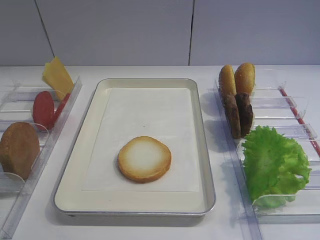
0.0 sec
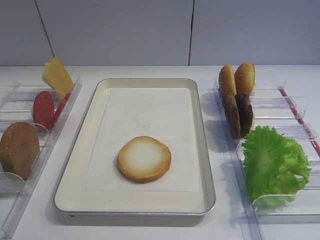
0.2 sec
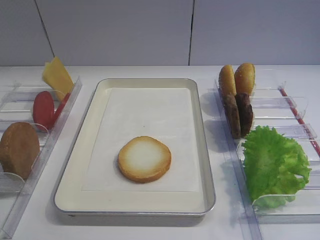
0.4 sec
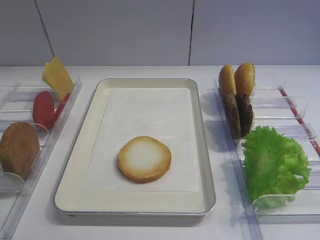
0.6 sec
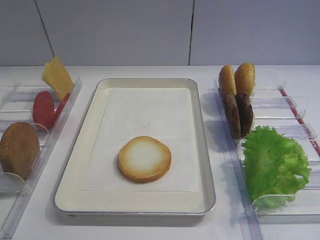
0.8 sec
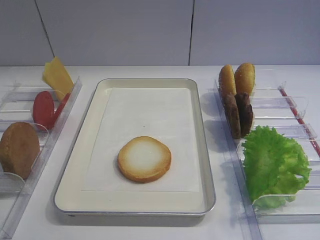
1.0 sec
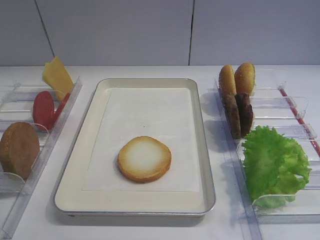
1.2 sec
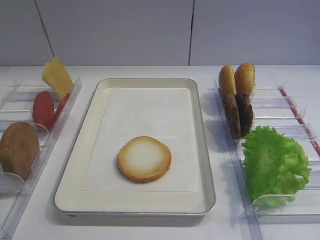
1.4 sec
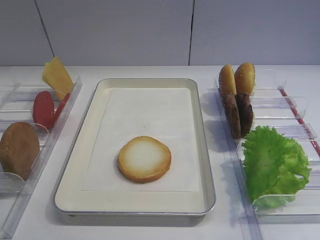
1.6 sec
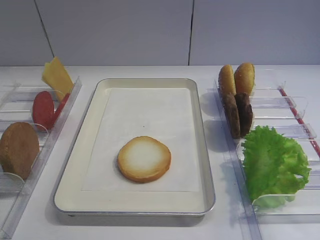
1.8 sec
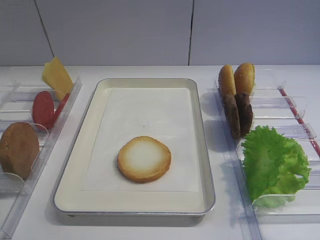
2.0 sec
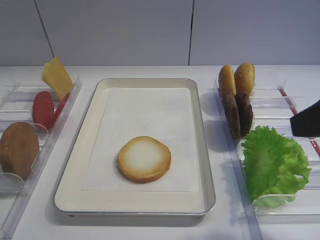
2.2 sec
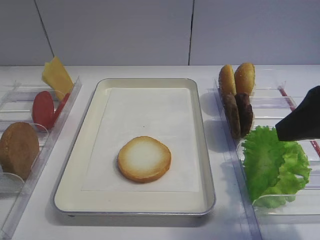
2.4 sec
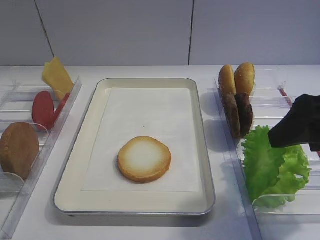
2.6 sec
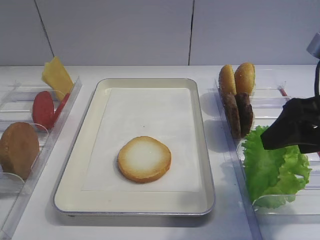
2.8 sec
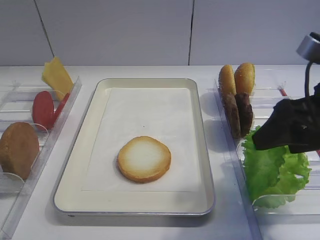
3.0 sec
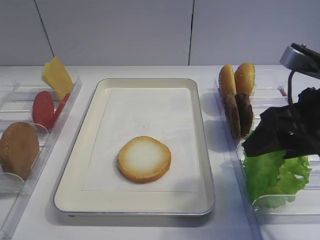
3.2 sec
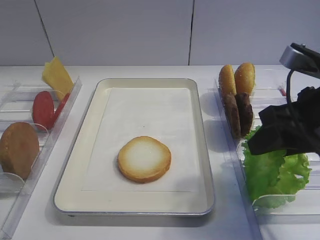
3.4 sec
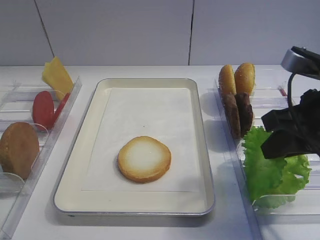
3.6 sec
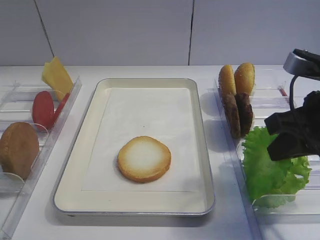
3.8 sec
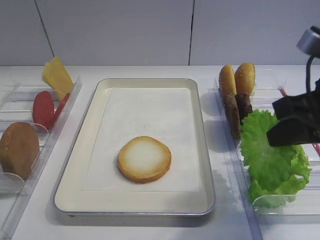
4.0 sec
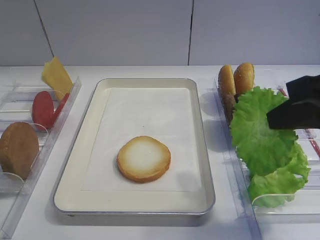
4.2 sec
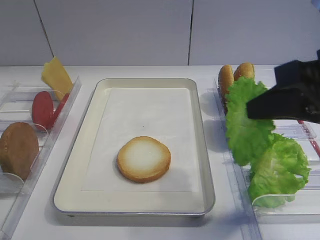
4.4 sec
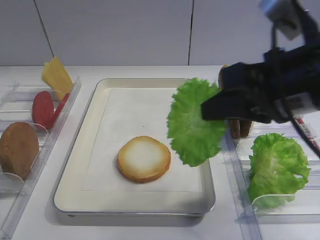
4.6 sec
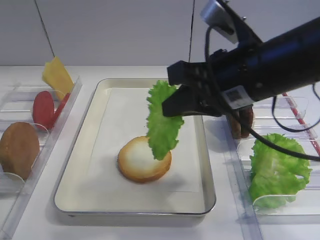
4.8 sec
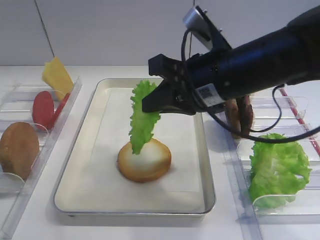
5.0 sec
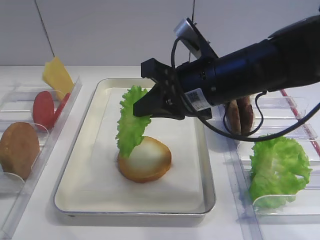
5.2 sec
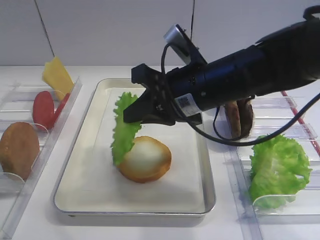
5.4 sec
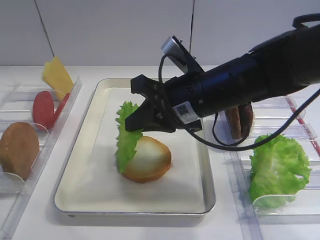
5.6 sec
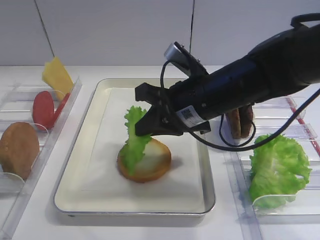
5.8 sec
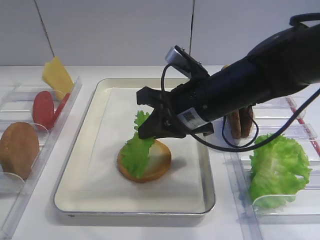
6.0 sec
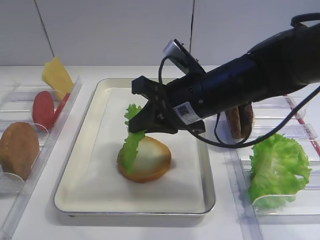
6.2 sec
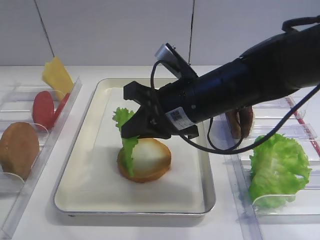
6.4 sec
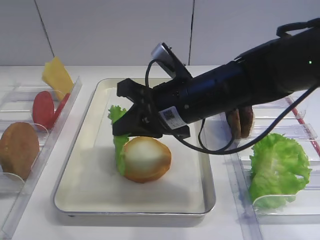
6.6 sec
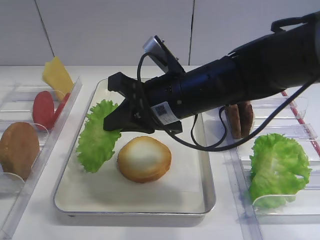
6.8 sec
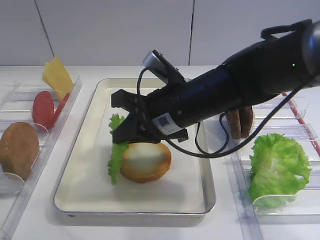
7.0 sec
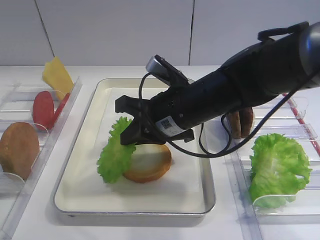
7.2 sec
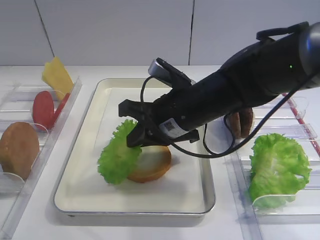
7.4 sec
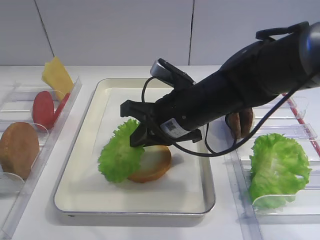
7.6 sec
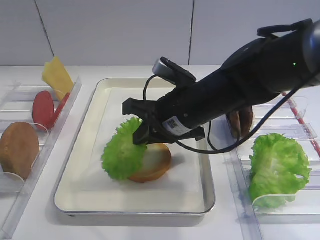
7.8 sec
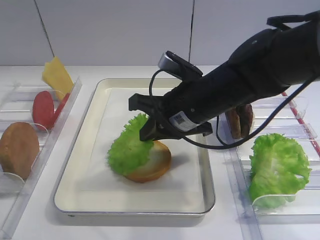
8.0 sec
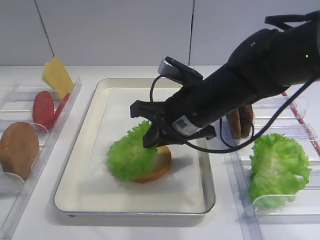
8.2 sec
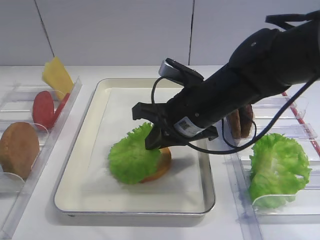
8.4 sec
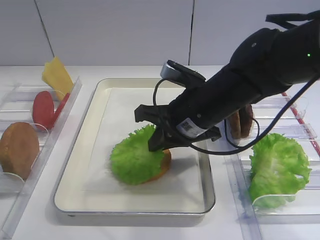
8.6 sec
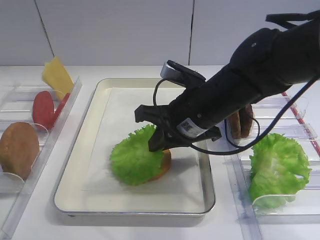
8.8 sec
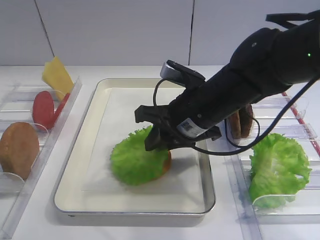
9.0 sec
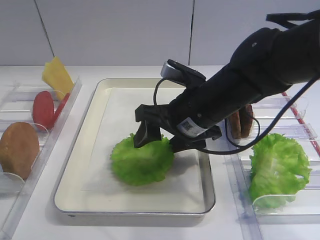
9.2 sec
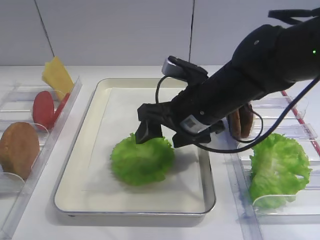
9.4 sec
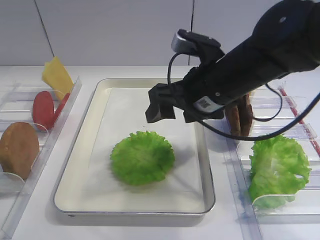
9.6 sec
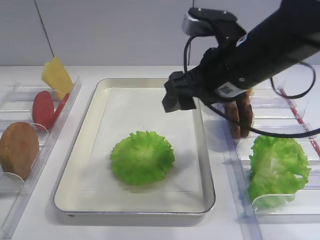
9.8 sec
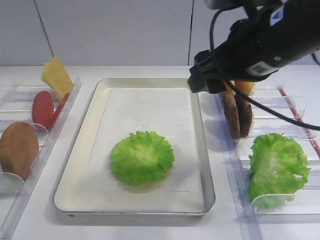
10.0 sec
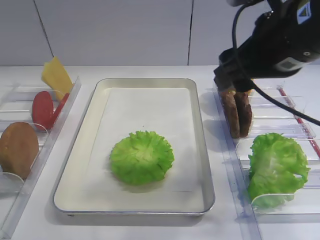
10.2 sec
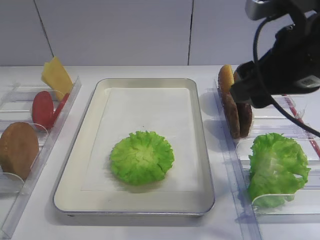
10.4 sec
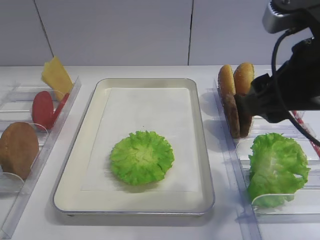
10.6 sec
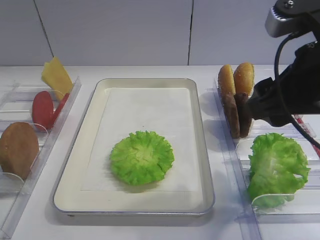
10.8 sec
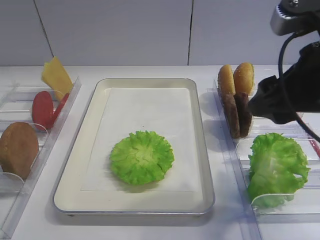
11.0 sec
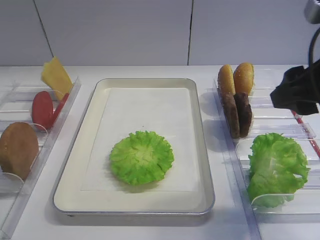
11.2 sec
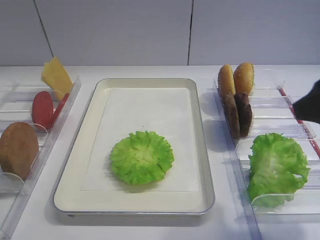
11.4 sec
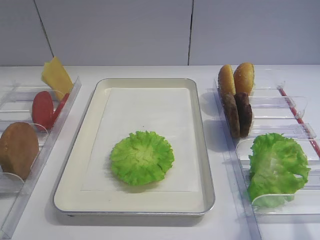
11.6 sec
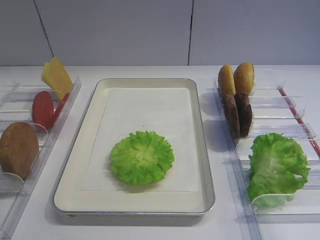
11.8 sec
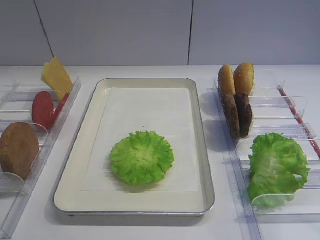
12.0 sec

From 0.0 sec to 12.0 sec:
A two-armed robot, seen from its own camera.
Step, from 0.0 sec to 4.0 sec: Pick up the lettuce leaf with the right gripper.
Step, from 4.2 sec to 9.4 sec: Place the lettuce leaf on the bread slice with the right gripper.
From 1.6 sec to 3.0 sec: The right gripper travels forward by about 20 cm.
From 3.0 sec to 4.4 sec: The right gripper closes.
From 4.4 sec to 6.0 sec: The right gripper travels to the left, forward and downward by roughly 20 cm.
From 6.0 sec to 9.0 sec: The grippers stay close to where they were, moving slightly.
From 9.0 sec to 10.4 sec: The right gripper is displaced upward, to the right and backward by about 15 cm, and opens its fingers.
From 10.4 sec to 12.0 sec: The right gripper heads backward and to the right, covering about 20 cm.

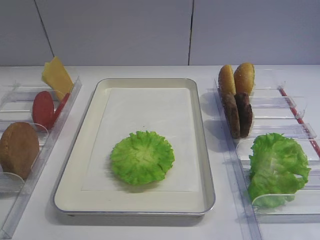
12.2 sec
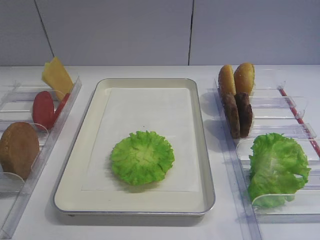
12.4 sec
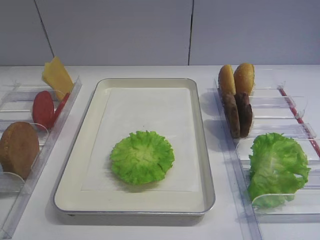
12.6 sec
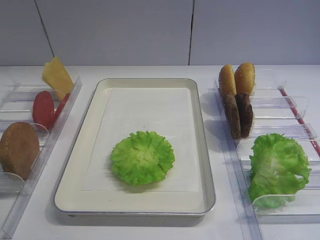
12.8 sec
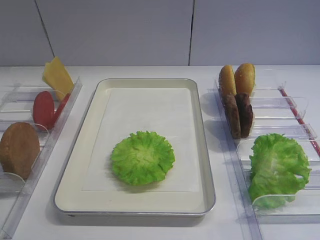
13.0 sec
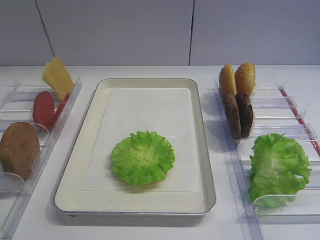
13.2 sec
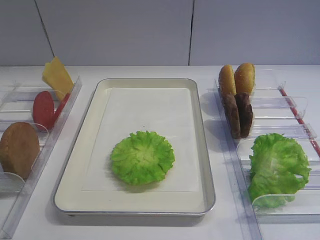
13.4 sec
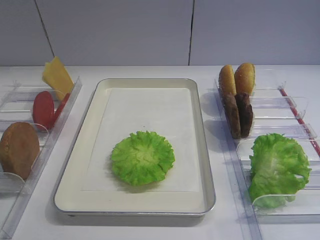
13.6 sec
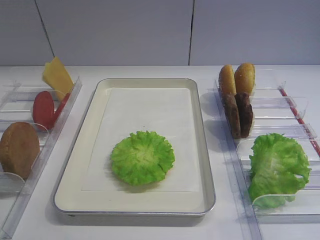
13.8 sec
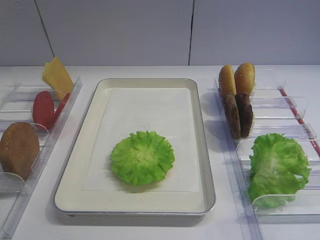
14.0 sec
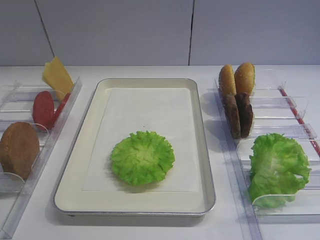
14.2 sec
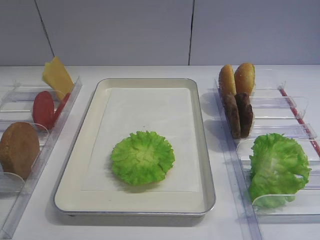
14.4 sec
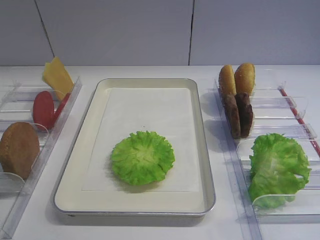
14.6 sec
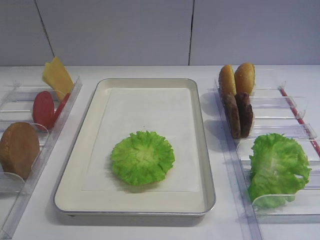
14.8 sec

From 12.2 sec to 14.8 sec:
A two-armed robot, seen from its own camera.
From 13.4 sec to 14.8 sec: Neither gripper changes place.

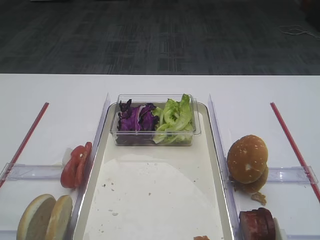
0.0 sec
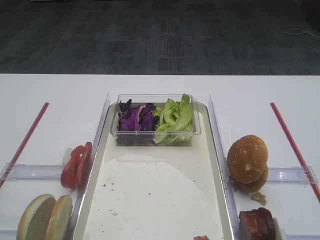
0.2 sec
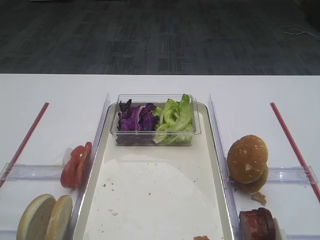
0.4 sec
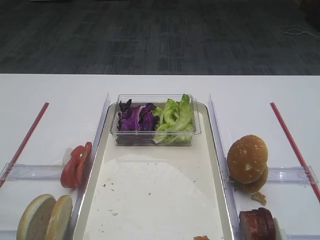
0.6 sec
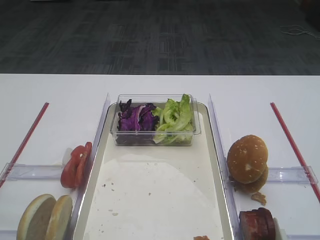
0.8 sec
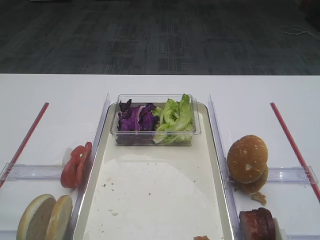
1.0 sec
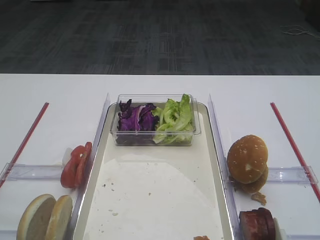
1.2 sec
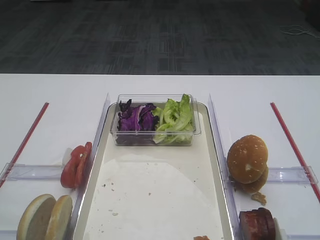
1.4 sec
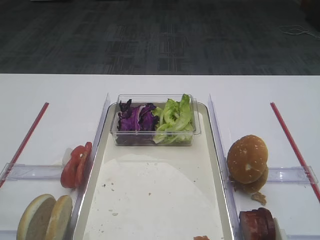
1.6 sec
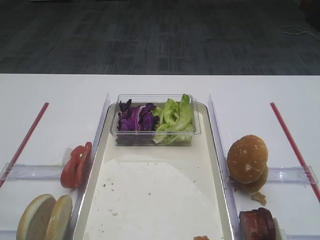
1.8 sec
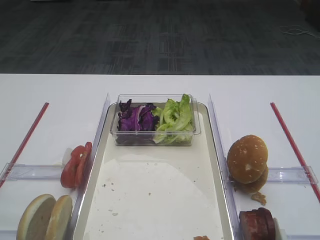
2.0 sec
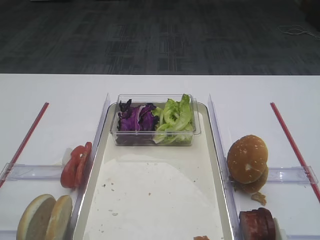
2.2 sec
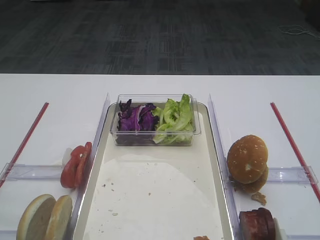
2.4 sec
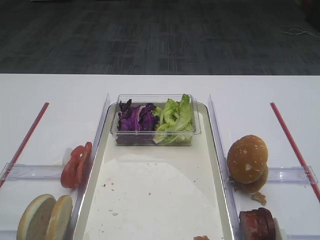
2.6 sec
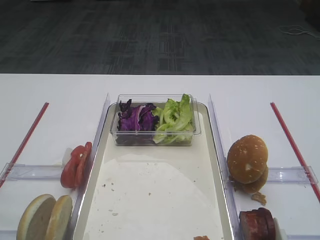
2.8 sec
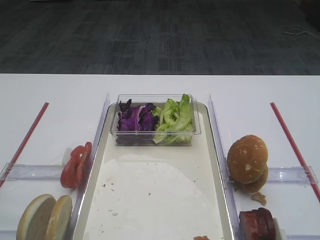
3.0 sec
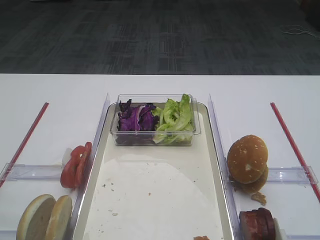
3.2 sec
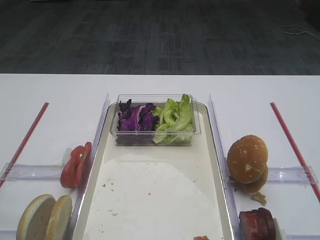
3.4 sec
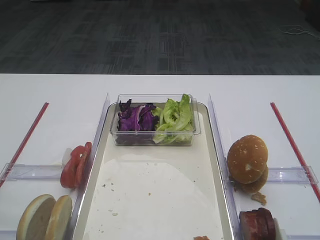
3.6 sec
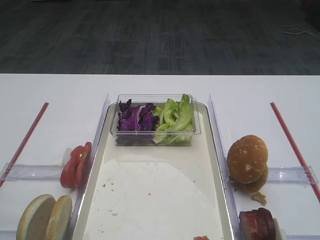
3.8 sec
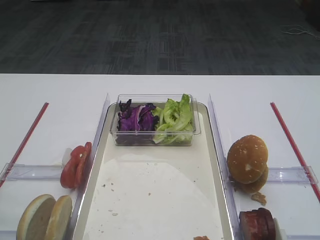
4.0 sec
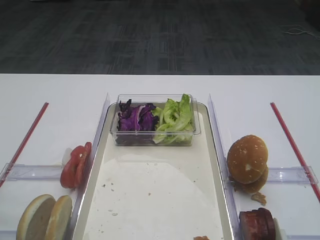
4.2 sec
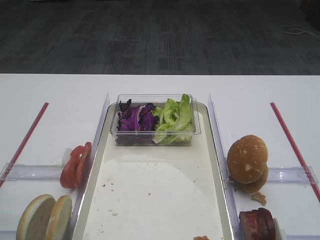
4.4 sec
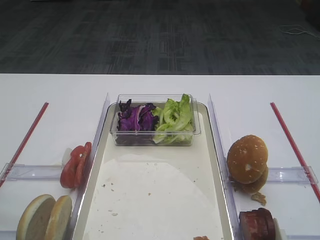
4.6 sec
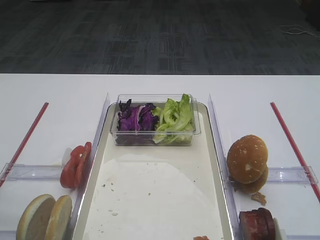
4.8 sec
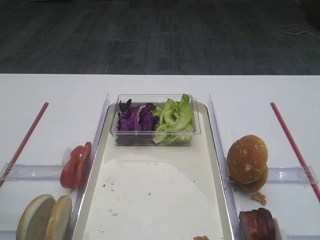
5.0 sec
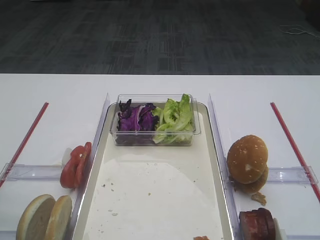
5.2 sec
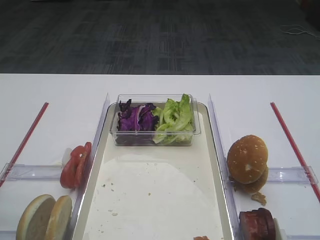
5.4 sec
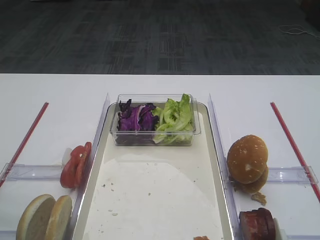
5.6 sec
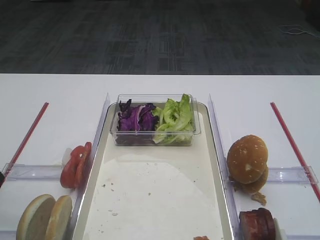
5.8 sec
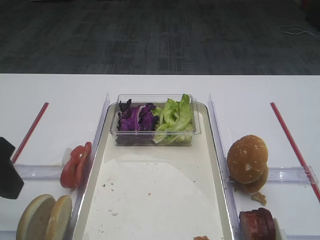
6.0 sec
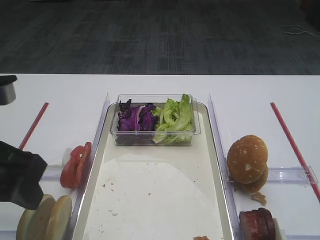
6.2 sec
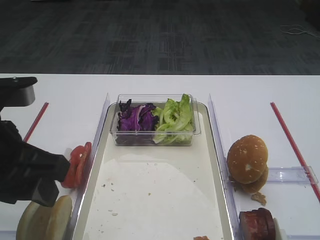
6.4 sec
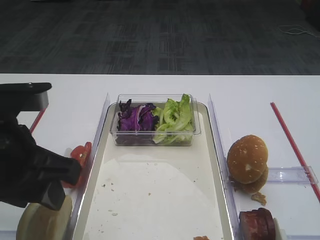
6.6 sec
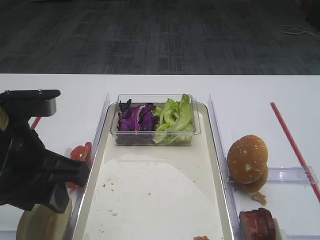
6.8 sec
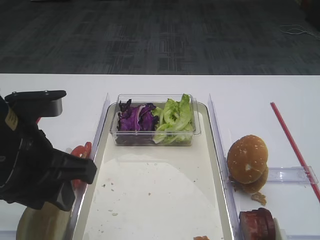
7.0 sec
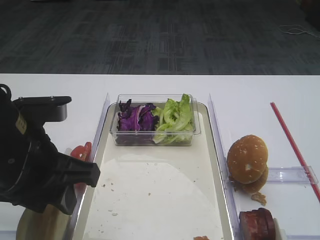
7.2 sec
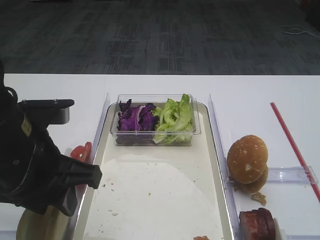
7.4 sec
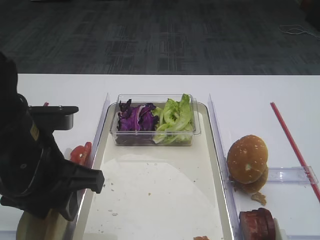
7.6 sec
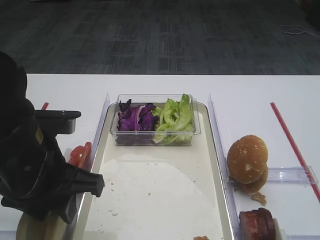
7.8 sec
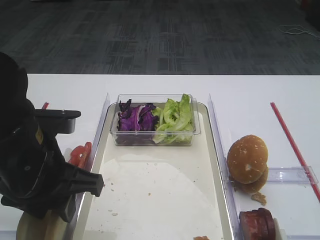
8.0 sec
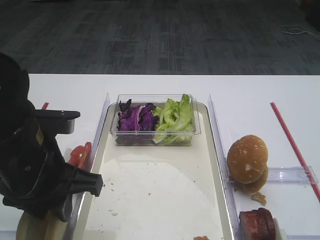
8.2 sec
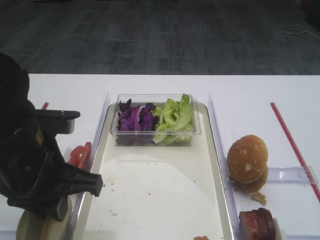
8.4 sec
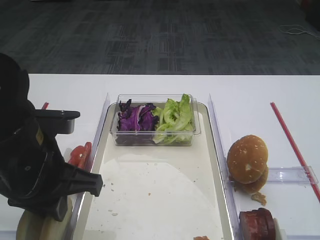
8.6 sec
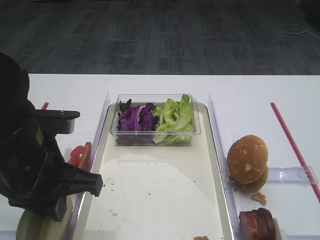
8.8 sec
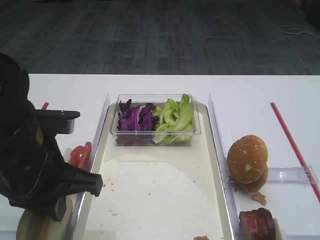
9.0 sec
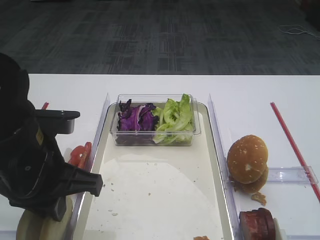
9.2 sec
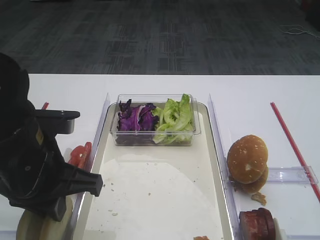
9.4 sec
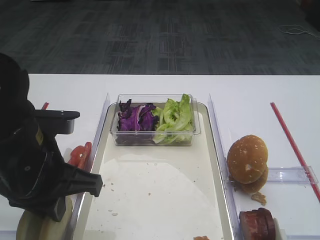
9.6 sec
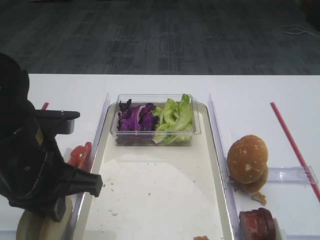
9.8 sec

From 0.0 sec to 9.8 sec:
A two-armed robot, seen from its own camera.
From 5.6 sec to 7.0 sec: The left gripper goes roughly 10 cm to the right.
From 7.0 sec to 8.4 sec: The left gripper closes up.
From 8.4 sec to 9.8 sec: Neither gripper changes place.
